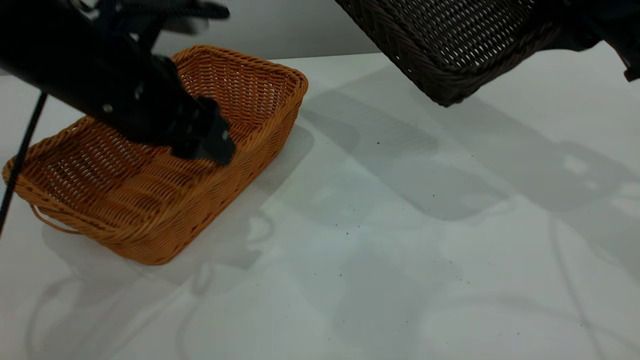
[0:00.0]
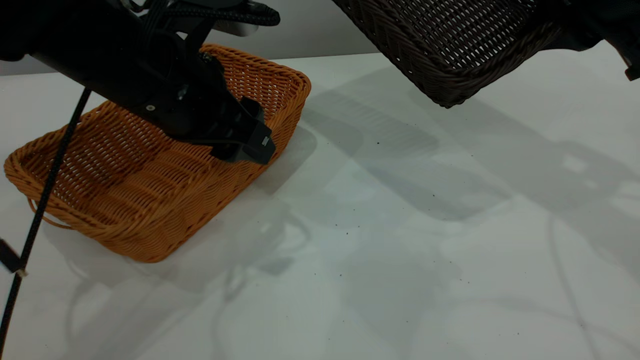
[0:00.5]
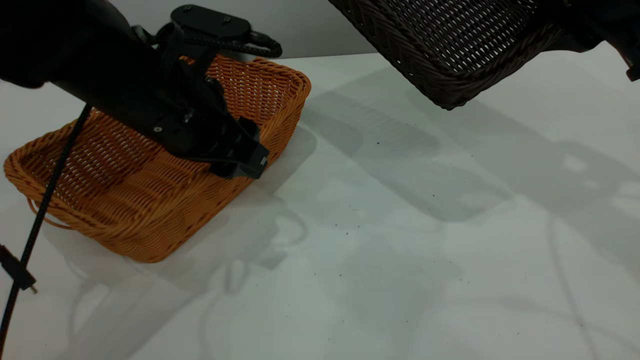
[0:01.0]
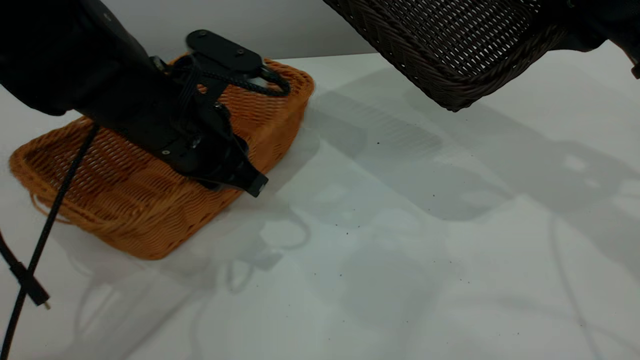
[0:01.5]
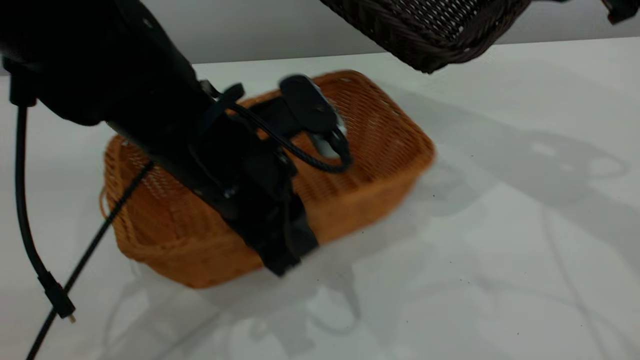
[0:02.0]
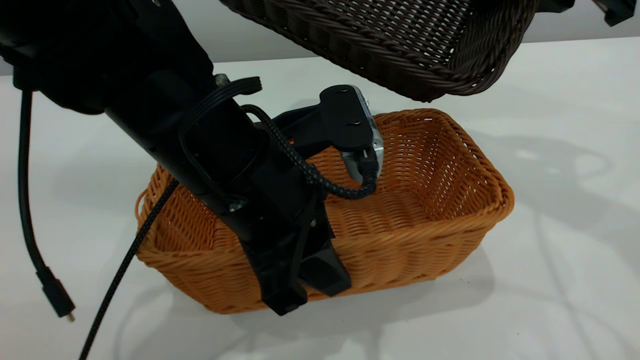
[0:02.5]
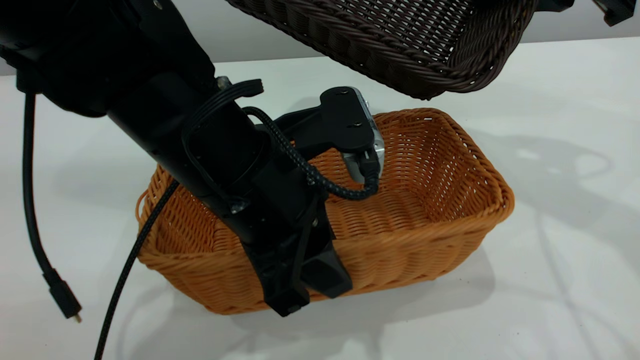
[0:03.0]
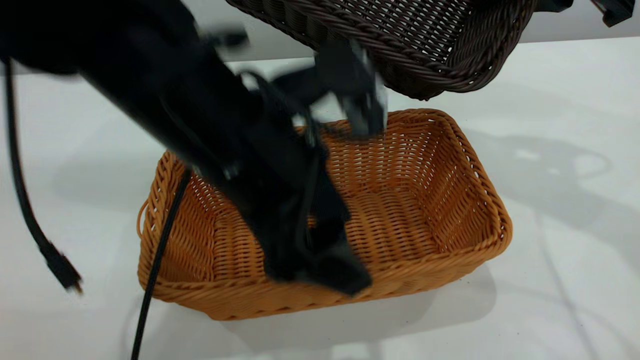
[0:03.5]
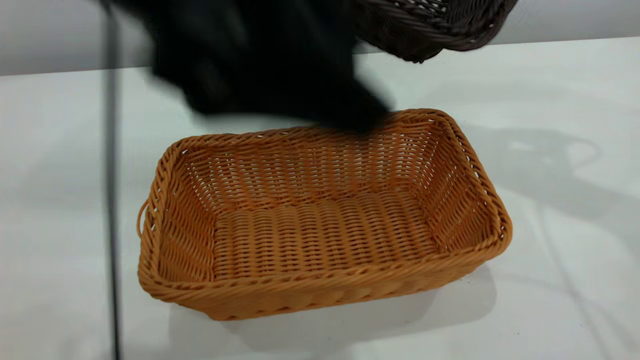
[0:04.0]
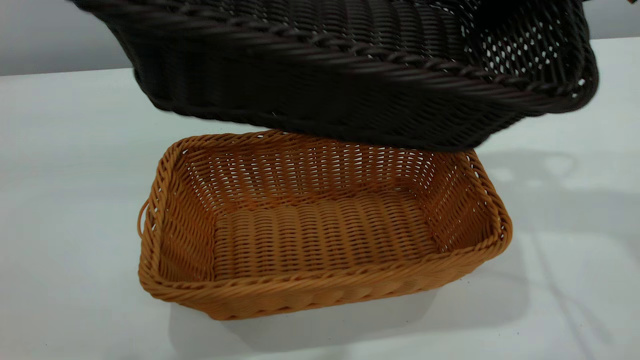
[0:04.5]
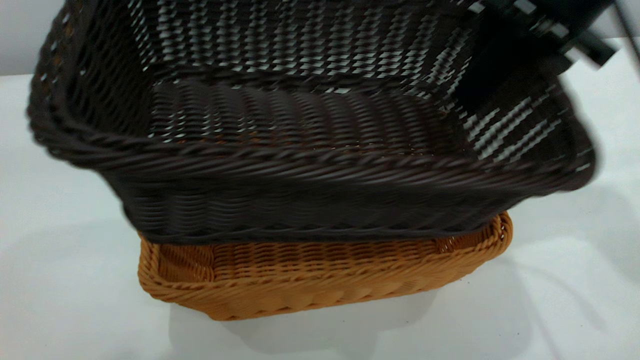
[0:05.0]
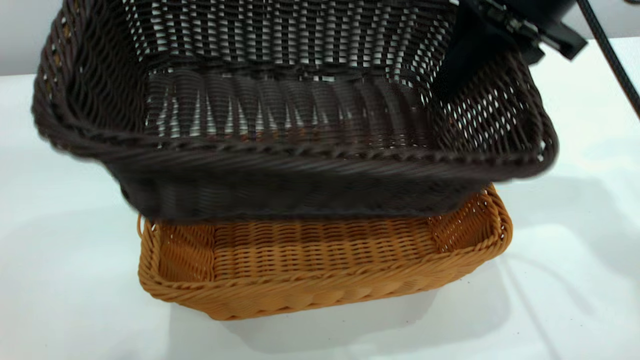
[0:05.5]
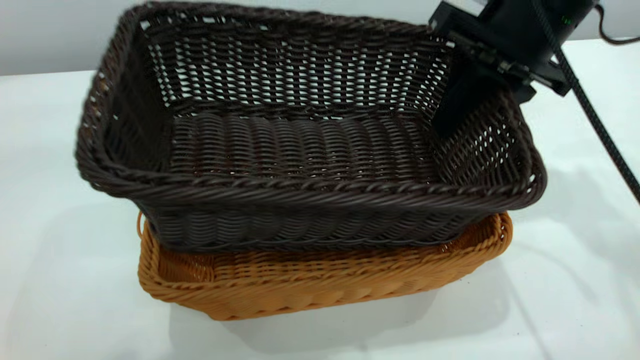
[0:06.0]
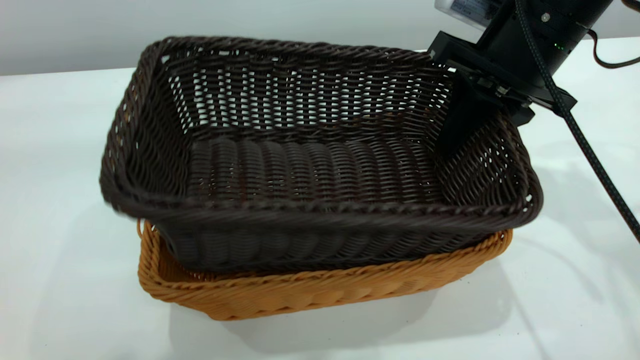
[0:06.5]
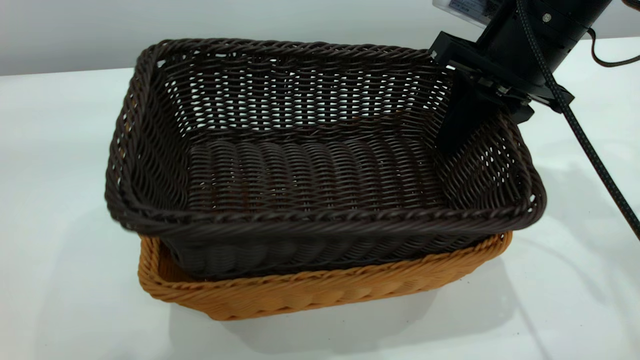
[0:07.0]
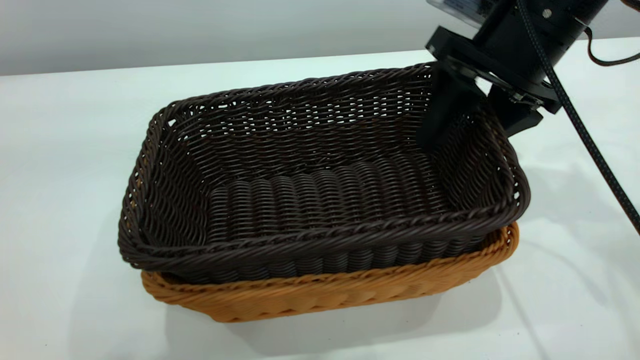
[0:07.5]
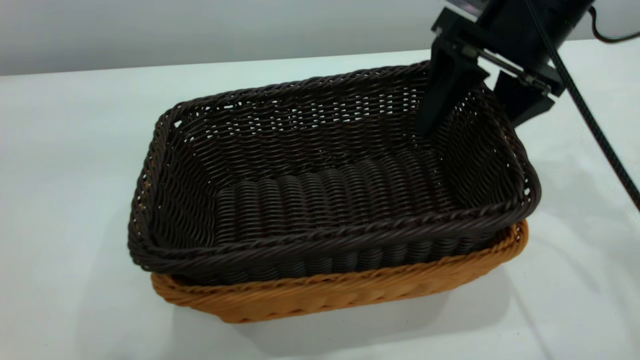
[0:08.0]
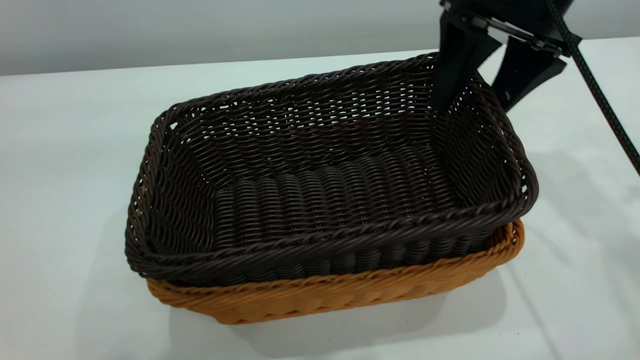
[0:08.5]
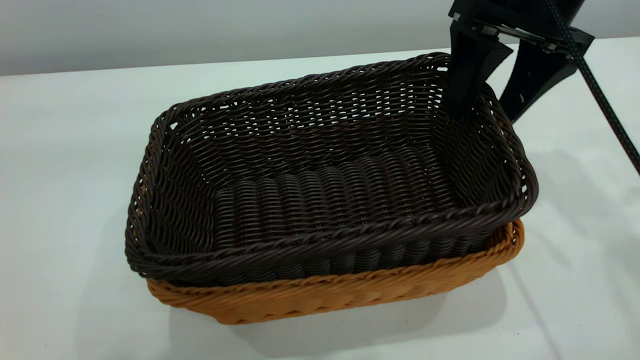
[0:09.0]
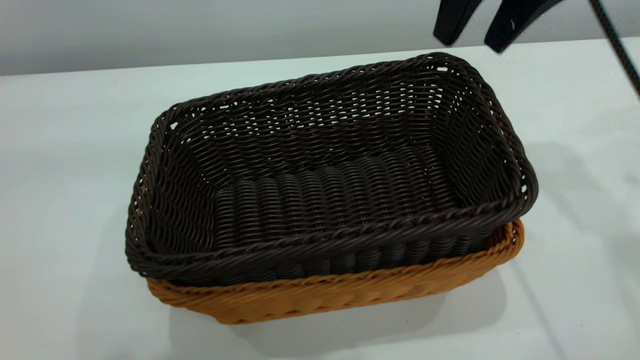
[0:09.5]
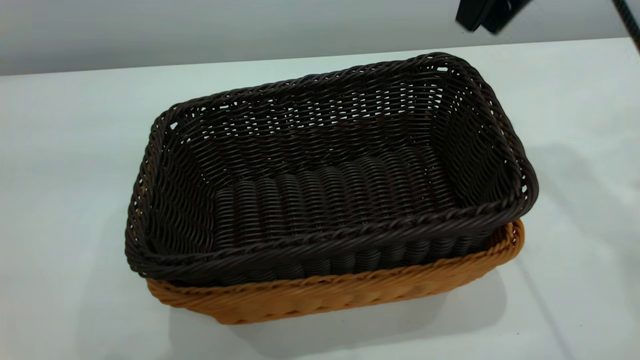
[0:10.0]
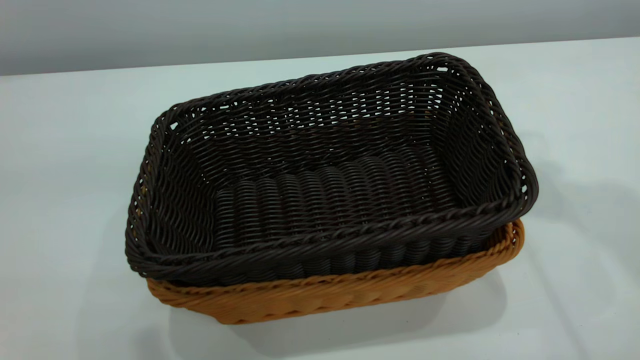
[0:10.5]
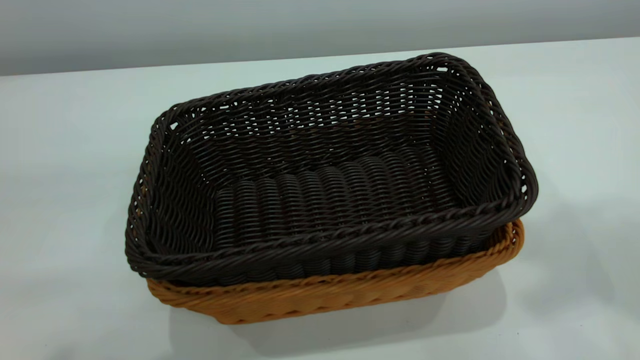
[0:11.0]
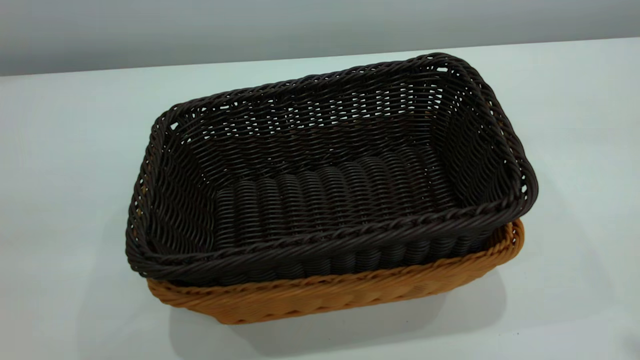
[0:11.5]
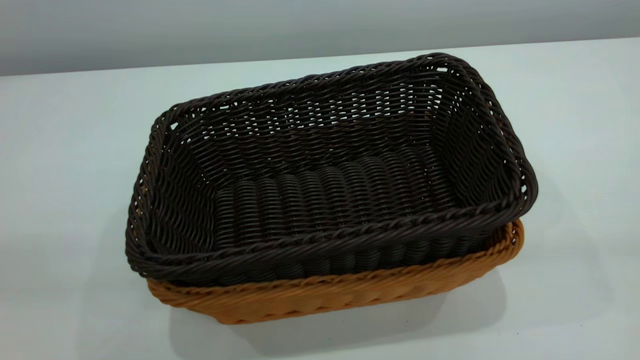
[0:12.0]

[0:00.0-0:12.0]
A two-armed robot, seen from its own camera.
Task of the whole recording: the left gripper grasp the brown basket and place it in the center of the table, the right gripper grasp the black basket and place it inside the brown one.
Step, 0:00.0 to 0:03.5: Place the light-colored basket in the center.
Step, 0:04.0 to 0:09.0: Place the dark basket on top of the light basket.
0:00.0 to 0:02.0: The left gripper travels to the right by approximately 10 cm, and closes.
0:02.0 to 0:04.0: The left gripper shifts roughly 20 cm upward, and opens its fingers.
0:04.0 to 0:06.0: The right gripper goes roughly 10 cm downward; the left gripper goes about 10 cm upward.
0:06.0 to 0:08.0: The right gripper opens up.
0:08.0 to 0:10.0: The right gripper goes roughly 10 cm upward, and closes its fingers, while the left gripper closes.
0:10.0 to 0:12.0: The right gripper goes roughly 35 cm backward, and closes.

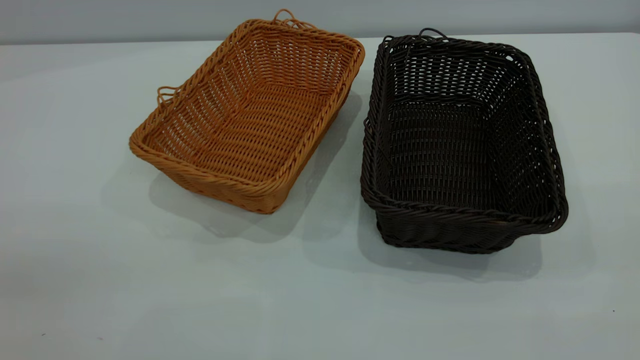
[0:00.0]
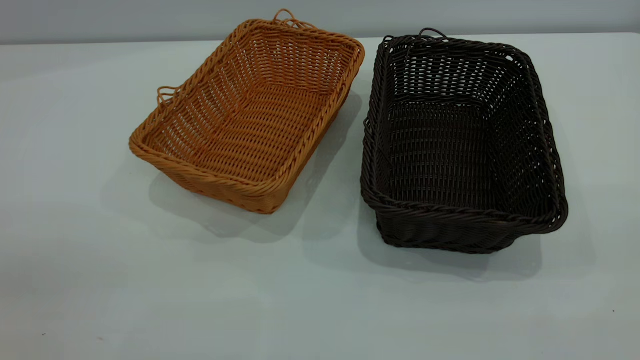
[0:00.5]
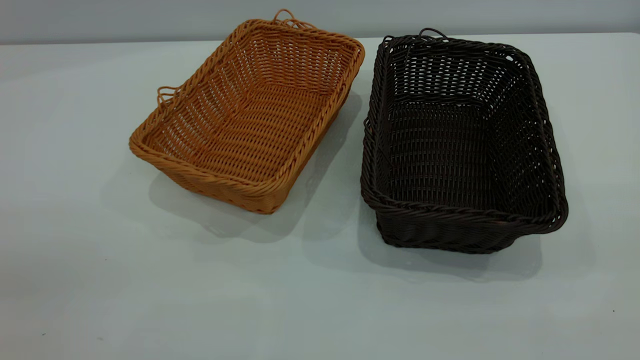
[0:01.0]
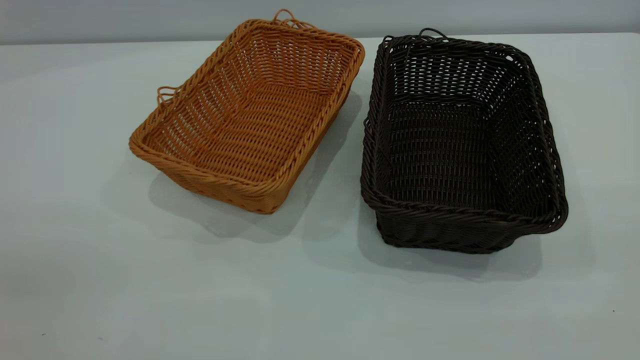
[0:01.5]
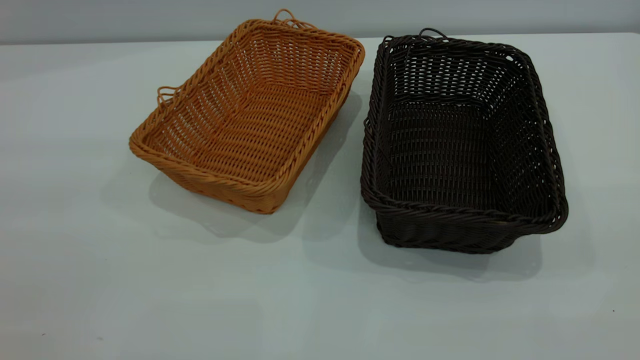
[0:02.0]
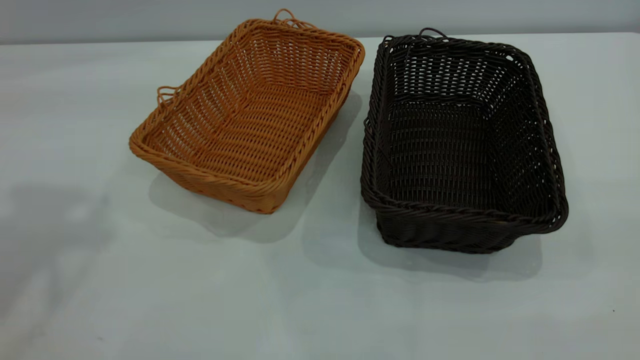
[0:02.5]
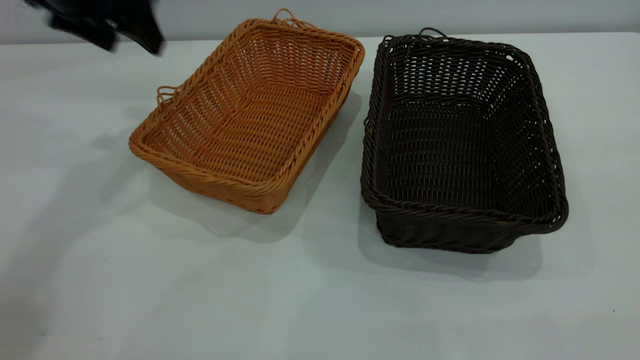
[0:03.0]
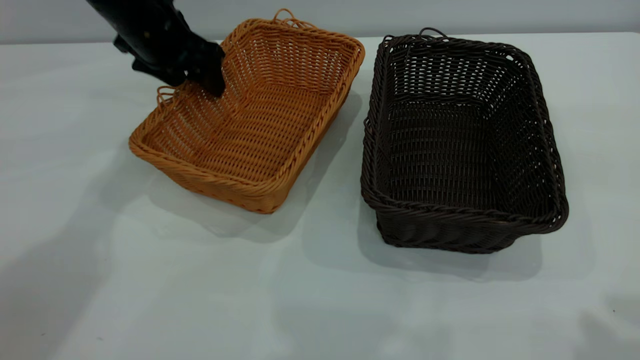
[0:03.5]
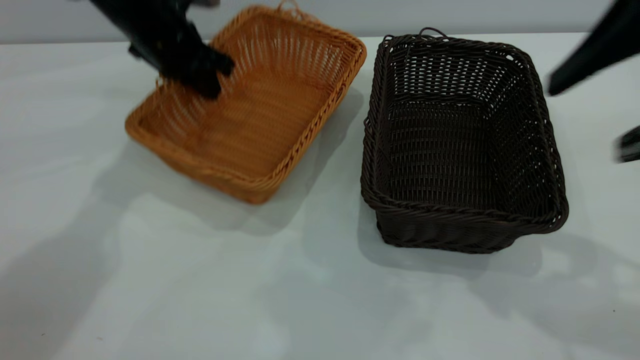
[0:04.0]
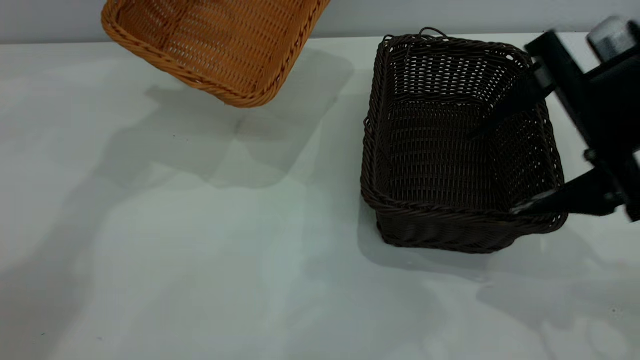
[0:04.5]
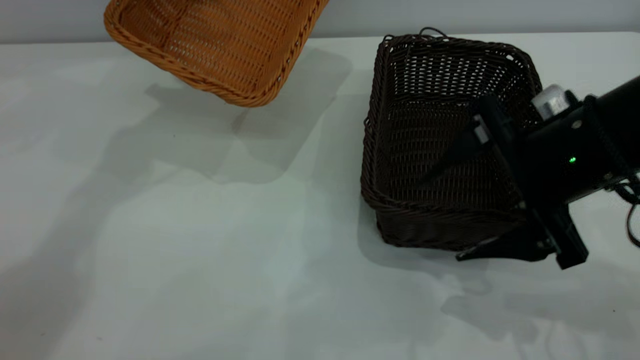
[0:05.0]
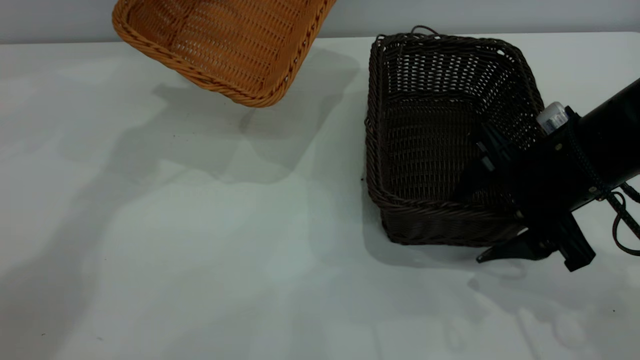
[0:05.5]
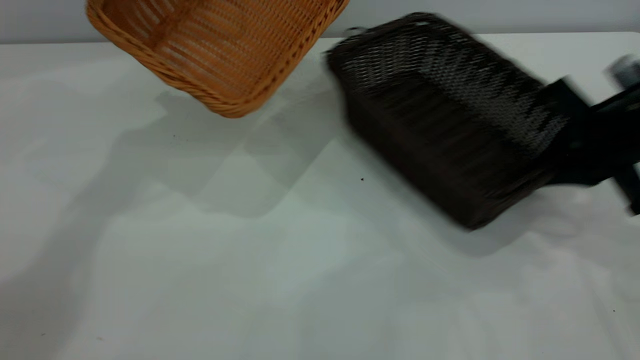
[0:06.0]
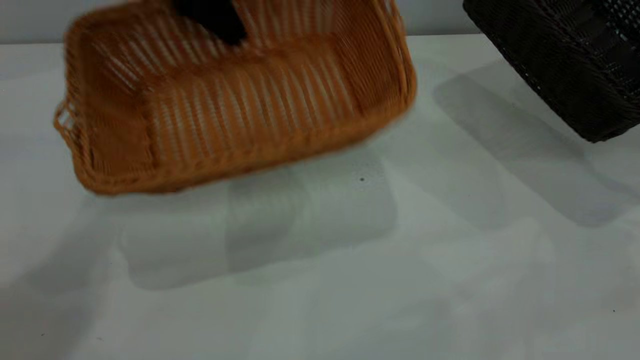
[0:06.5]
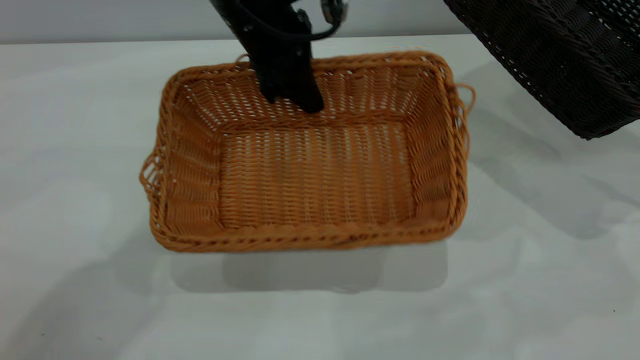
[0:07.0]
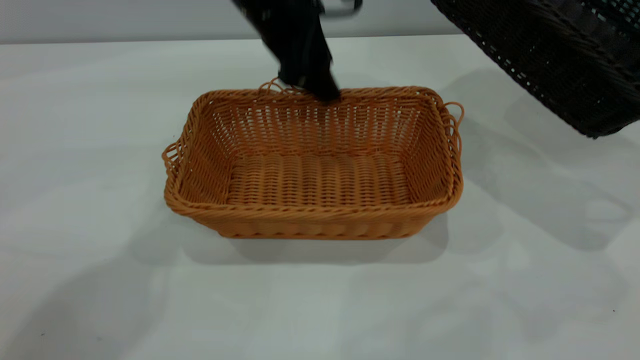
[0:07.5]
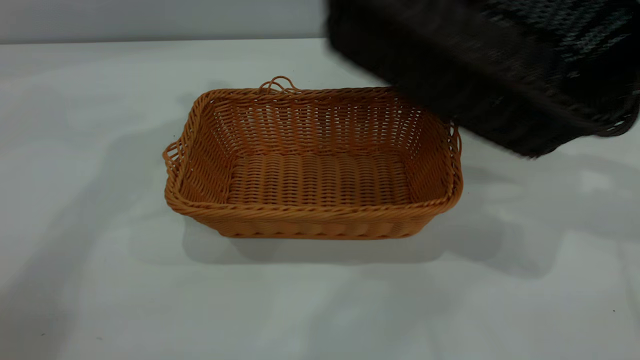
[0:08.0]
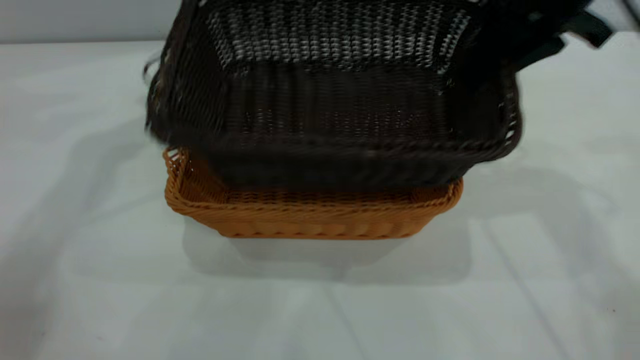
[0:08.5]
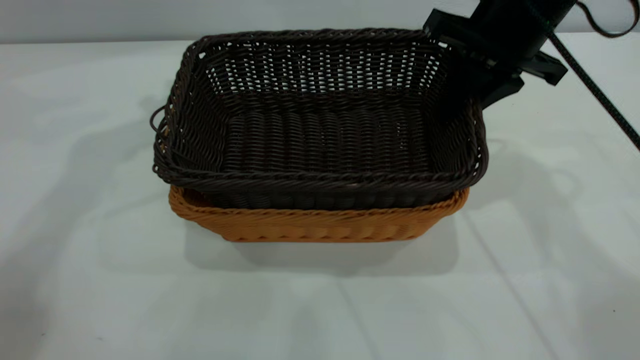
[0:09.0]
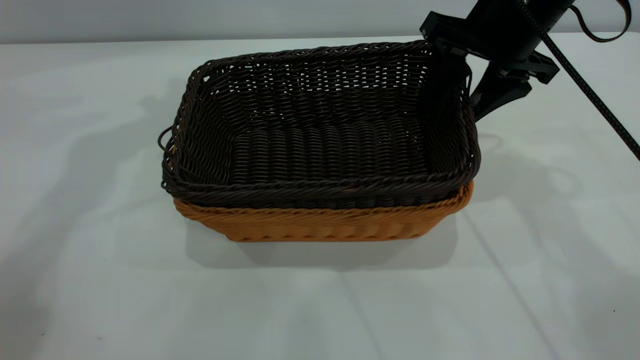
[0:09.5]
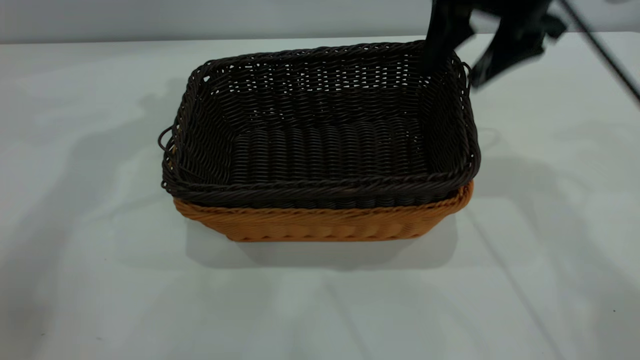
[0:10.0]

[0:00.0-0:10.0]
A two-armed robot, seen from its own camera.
Task of the whole recording: the left gripper grasp the brown basket and place it in the center of the table, the right gripper grasp the black basket and place it inside the brown one.
Step, 0:00.0 to 0:06.0: Pick up the light basket with the right gripper.
Step, 0:06.5 to 0:07.5: Place the light-colored basket in the center.
Step, 0:08.0 to 0:10.0: Place the dark basket on top of the light basket.
0:02.0 to 0:04.0: The right gripper moves forward, some 20 cm. The left gripper heads forward and downward, covering about 50 cm, and closes.
0:04.0 to 0:06.0: The right gripper is displaced downward, forward and to the right by roughly 20 cm, and closes. The left gripper travels upward by some 15 cm.
0:06.0 to 0:08.0: The left gripper goes downward and returns, roughly 10 cm each way, and opens its fingers. The right gripper is displaced upward by about 10 cm, and moves roughly 10 cm to the right and comes back.
0:08.0 to 0:10.0: The right gripper is displaced to the left and forward by about 15 cm, and opens up.
